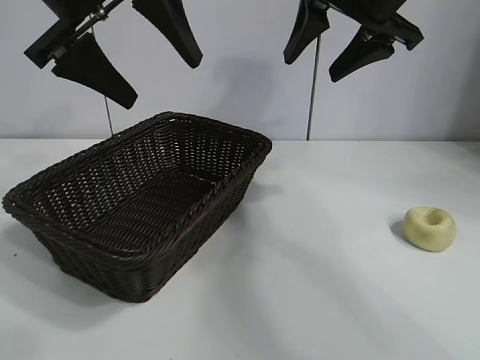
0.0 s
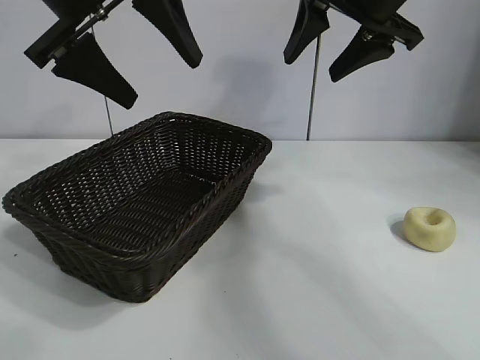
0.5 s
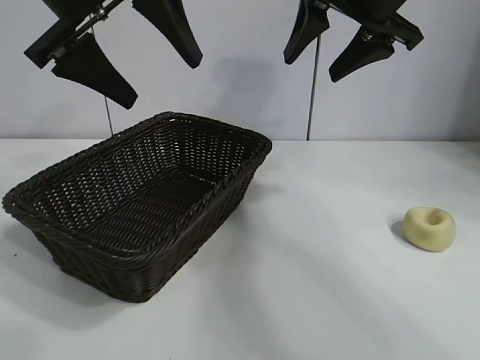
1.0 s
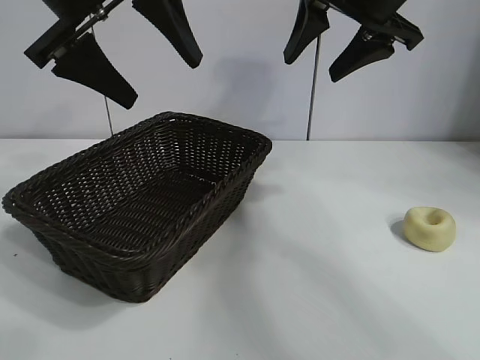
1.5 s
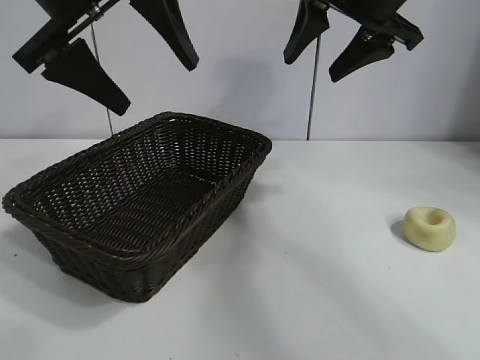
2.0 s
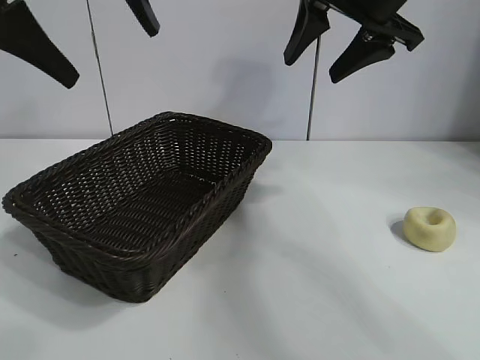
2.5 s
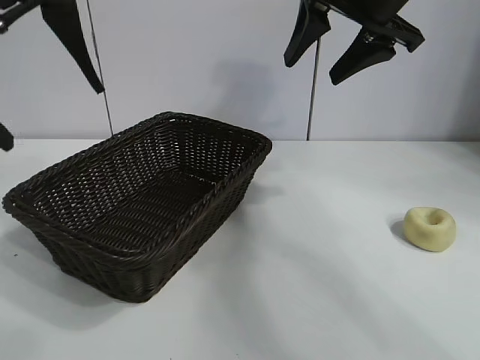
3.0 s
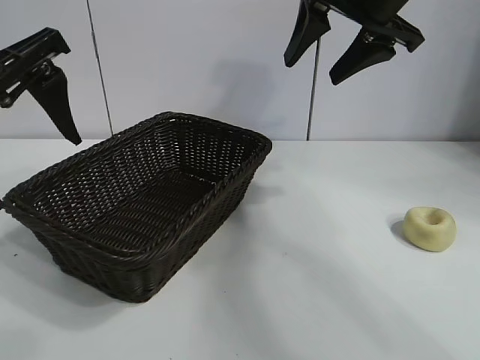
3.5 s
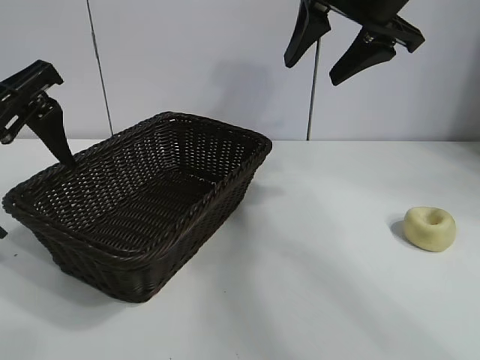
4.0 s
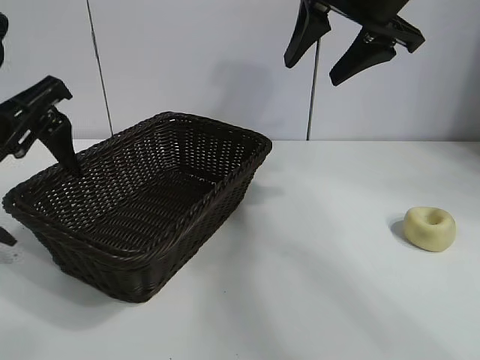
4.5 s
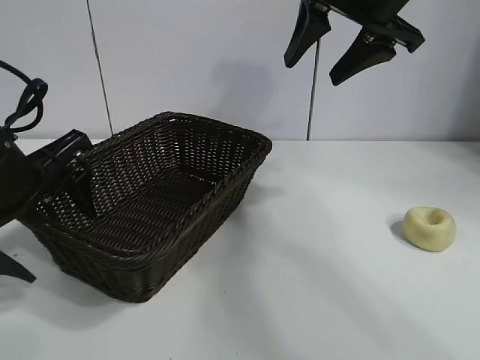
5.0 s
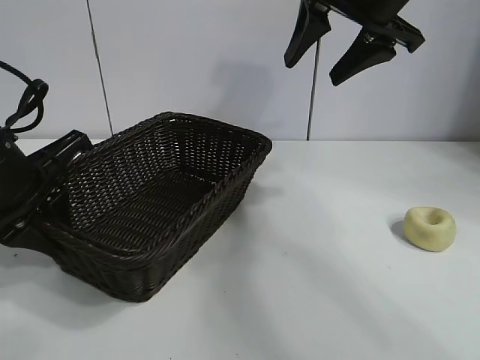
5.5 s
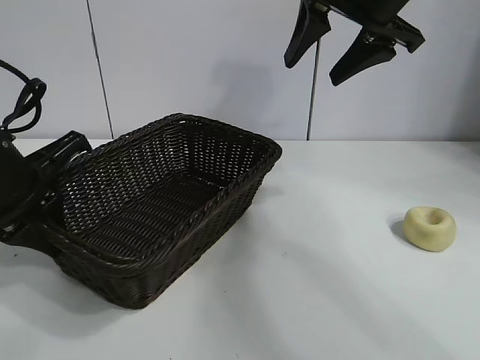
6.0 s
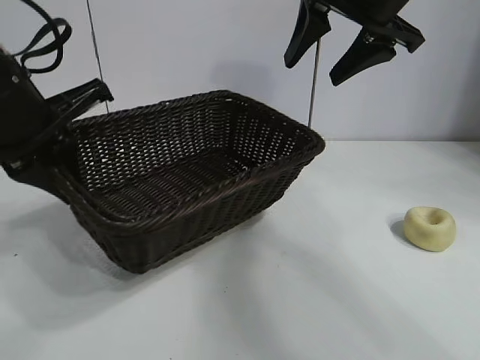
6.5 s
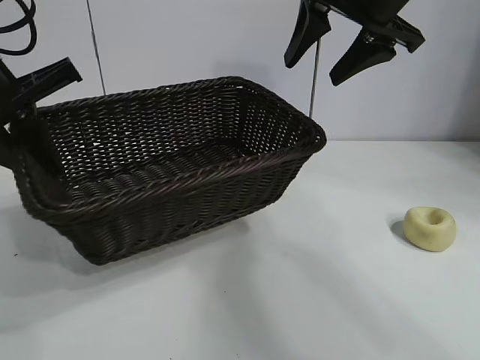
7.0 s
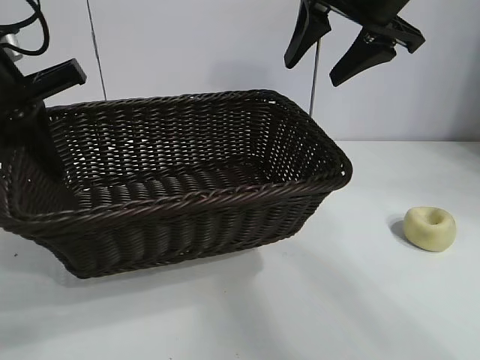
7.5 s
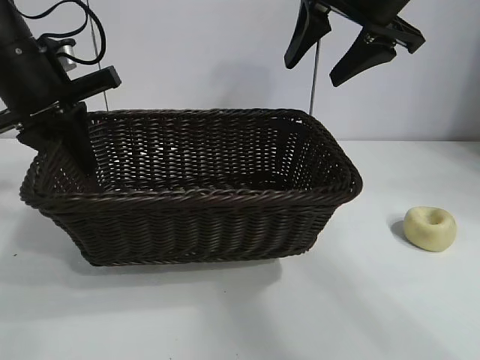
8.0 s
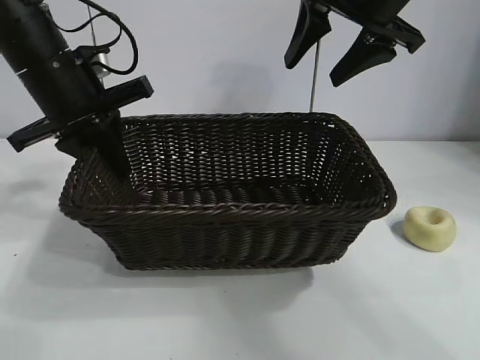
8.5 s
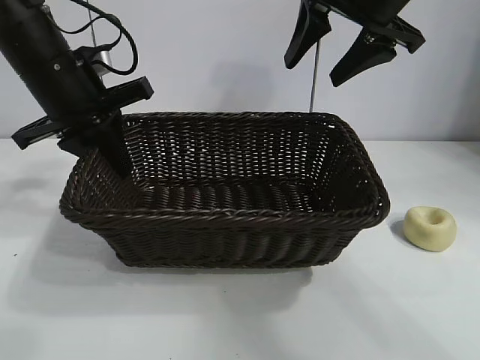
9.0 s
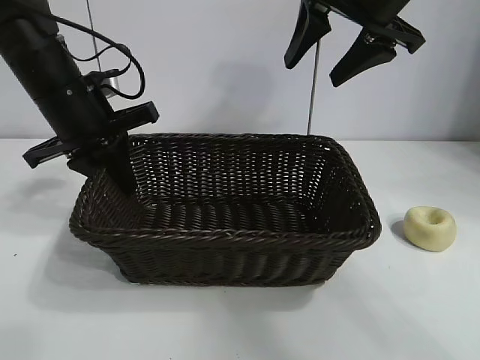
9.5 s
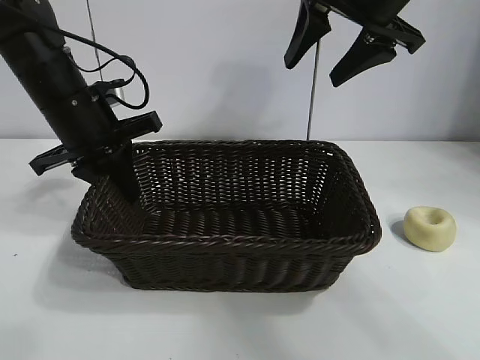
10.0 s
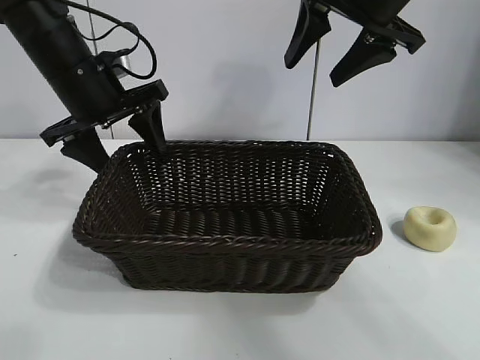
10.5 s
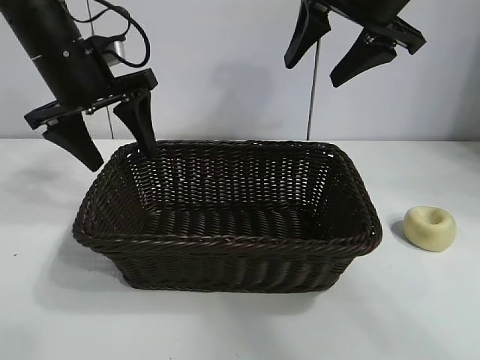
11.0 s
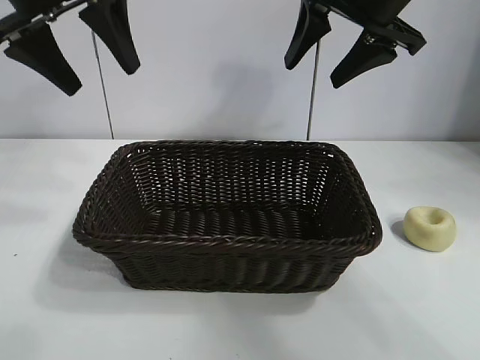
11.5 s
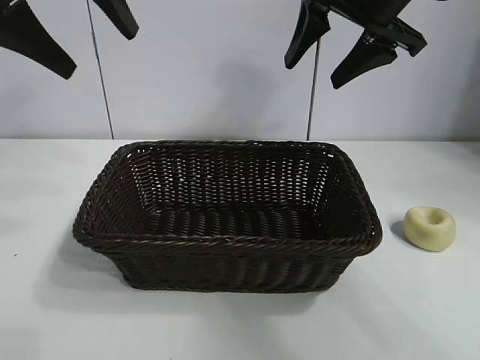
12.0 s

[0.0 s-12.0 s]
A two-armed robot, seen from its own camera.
Task of the whole recording: pick up the egg yolk pastry and put it into the basket.
Step, 2.0 to 5.5 s: Grasp the basket with left gripper.
Step, 6.0 to 10.0 s: Place the basket in the center of view with left gripper.

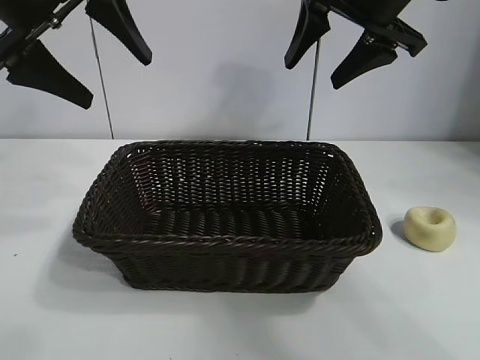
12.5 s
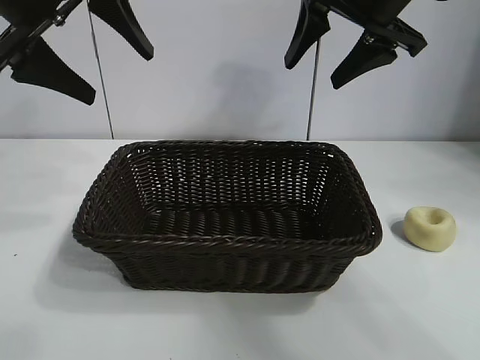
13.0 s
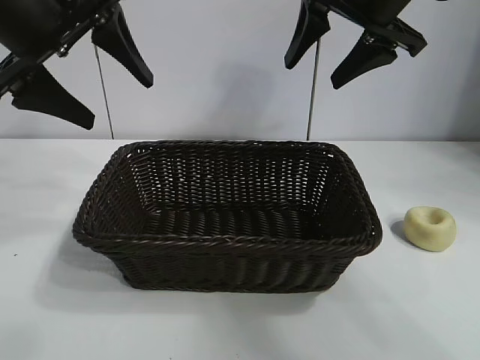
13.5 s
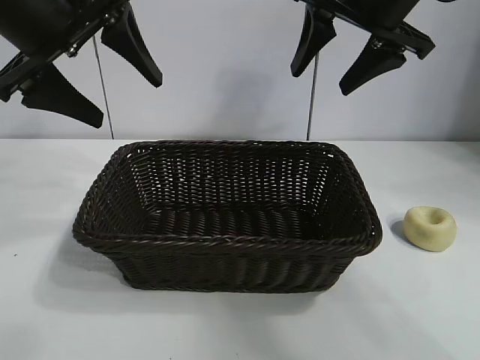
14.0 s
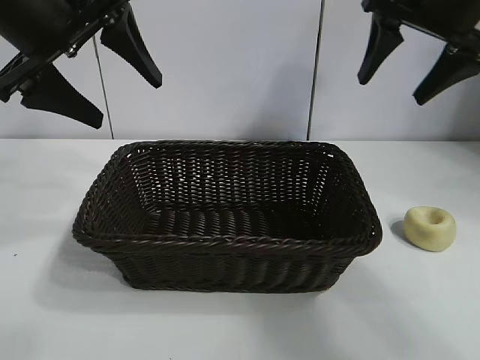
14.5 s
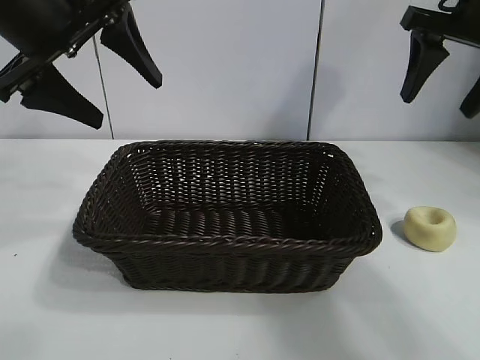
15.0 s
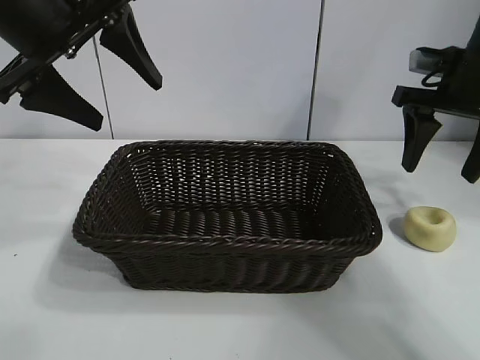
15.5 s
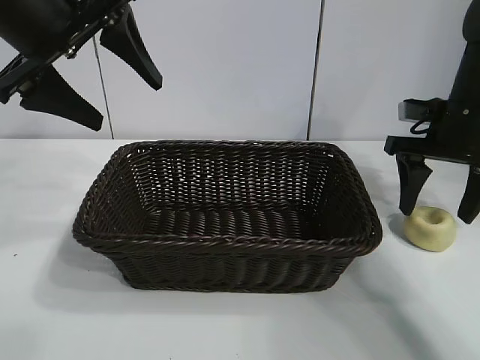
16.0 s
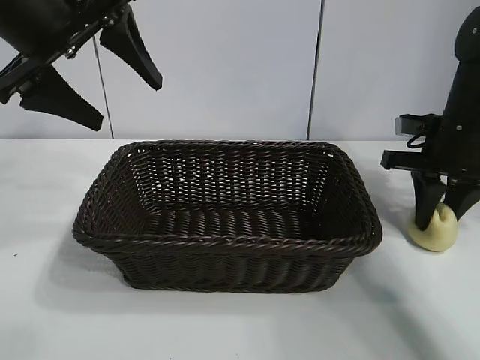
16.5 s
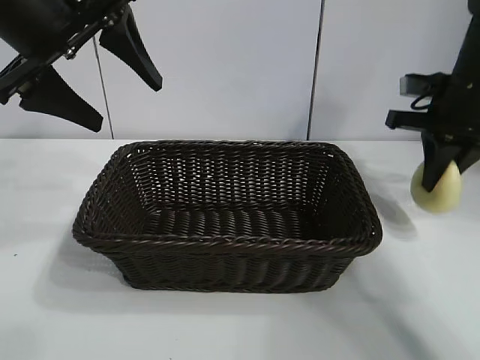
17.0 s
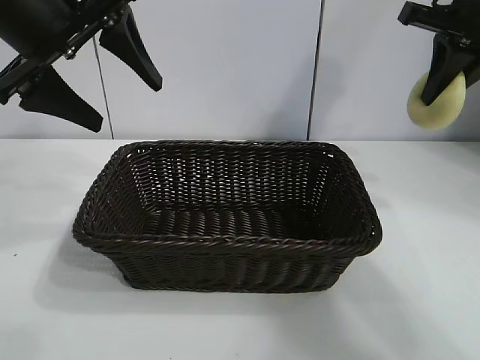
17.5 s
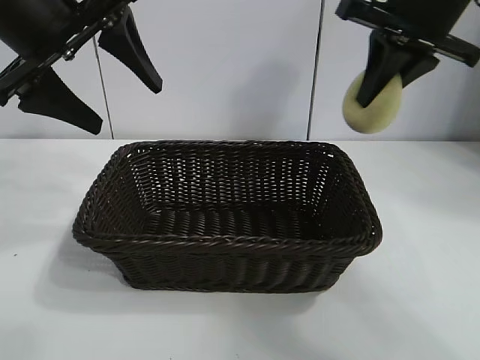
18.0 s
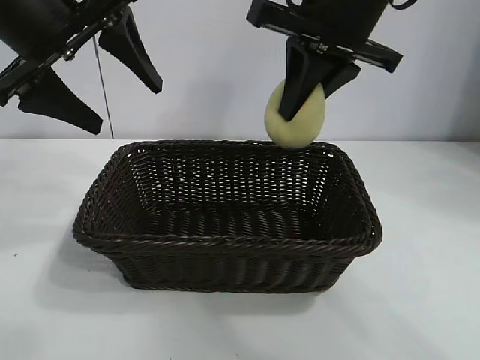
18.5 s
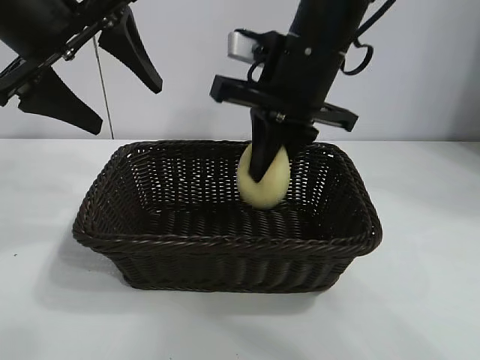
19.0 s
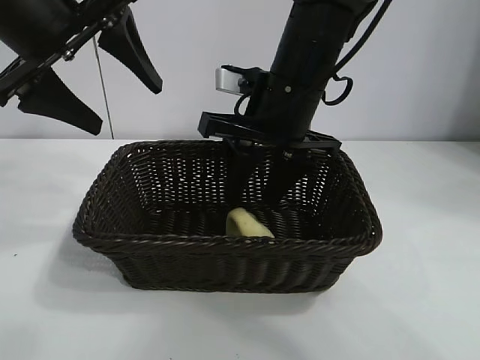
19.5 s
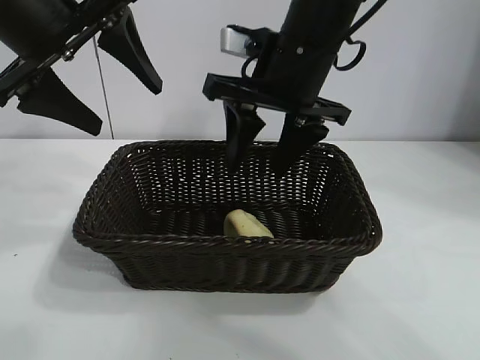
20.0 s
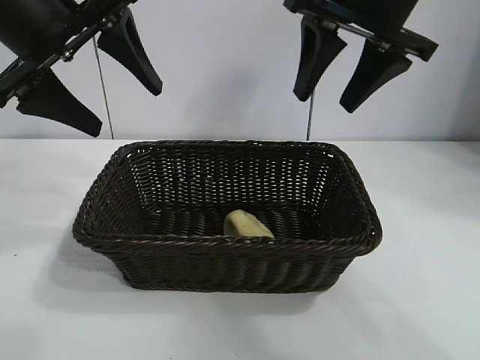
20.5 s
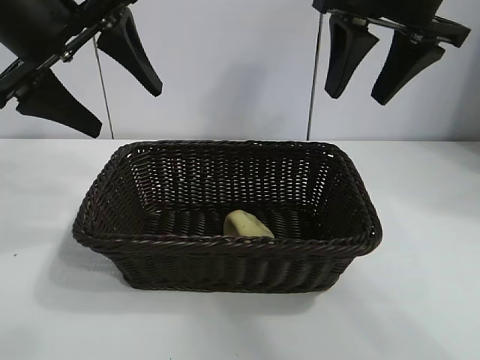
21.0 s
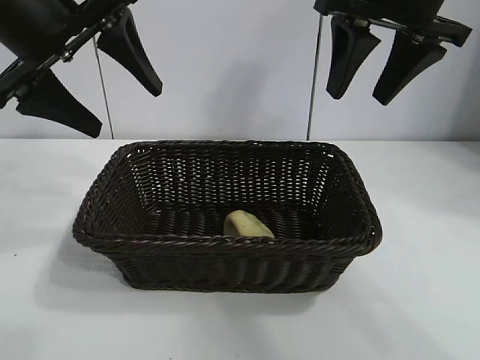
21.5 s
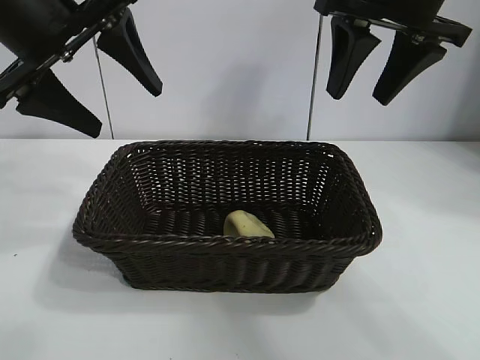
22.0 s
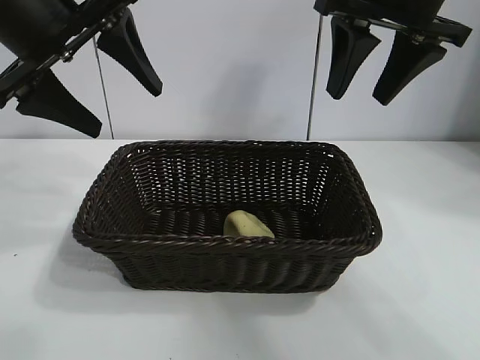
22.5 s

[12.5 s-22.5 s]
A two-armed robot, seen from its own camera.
Task of the whole recording: pick up the egg yolk pastry and put it into the basket.
Step, 12.5 to 16.5 s: Grasp egg yolk pastry with right gripper.
Step, 17.0 to 19.5 s: Place the egg yolk pastry in the basket with right gripper.
